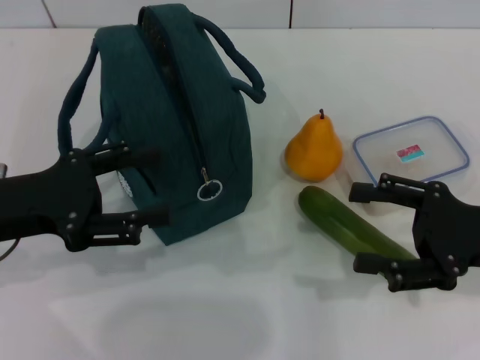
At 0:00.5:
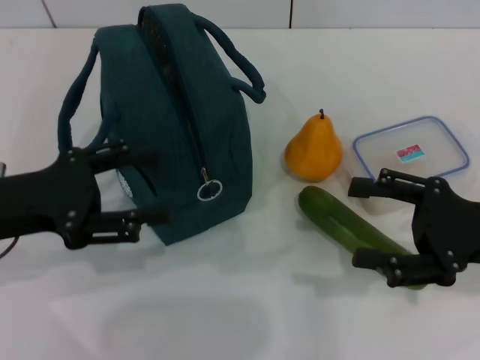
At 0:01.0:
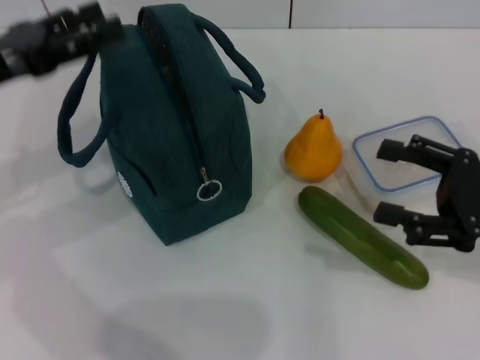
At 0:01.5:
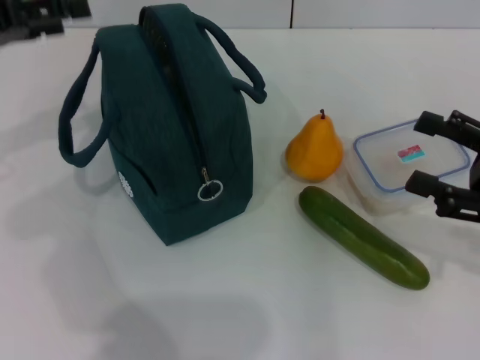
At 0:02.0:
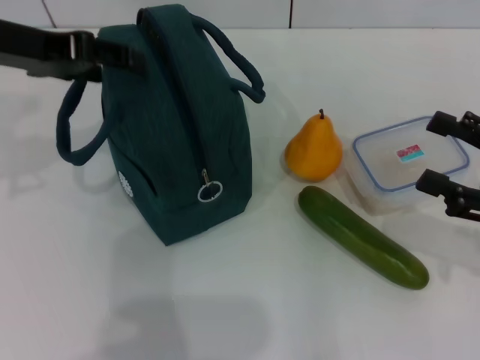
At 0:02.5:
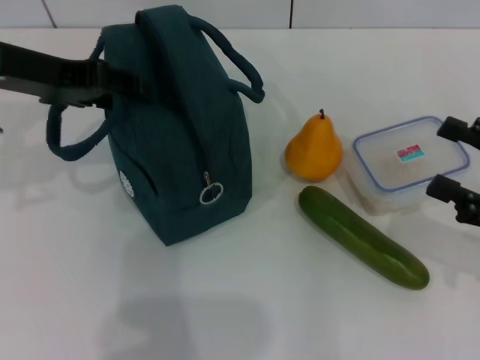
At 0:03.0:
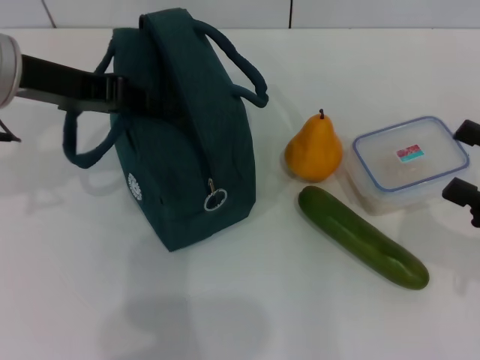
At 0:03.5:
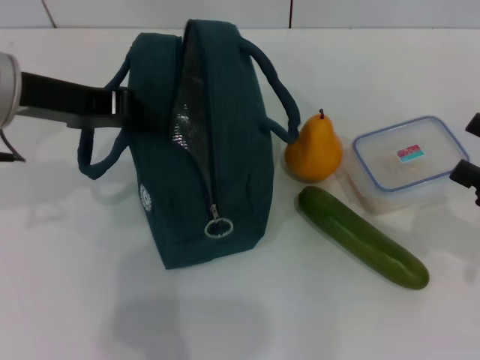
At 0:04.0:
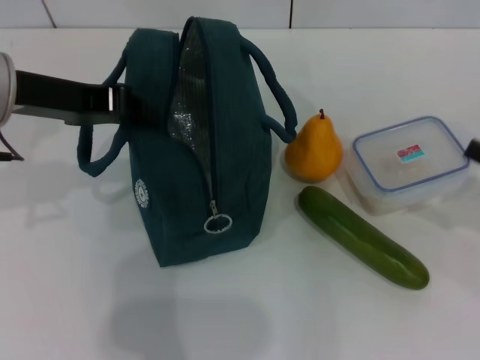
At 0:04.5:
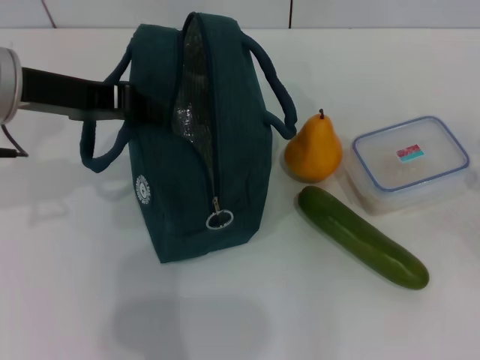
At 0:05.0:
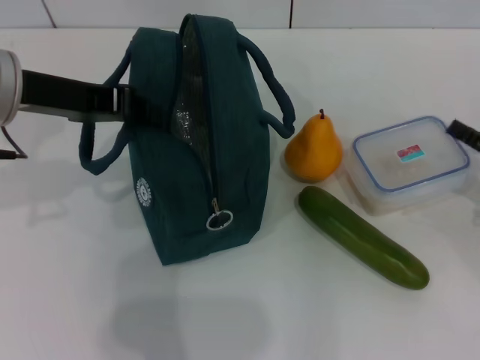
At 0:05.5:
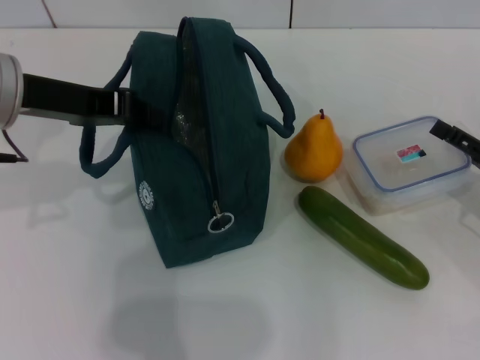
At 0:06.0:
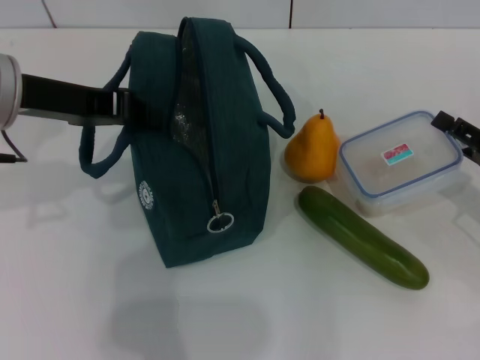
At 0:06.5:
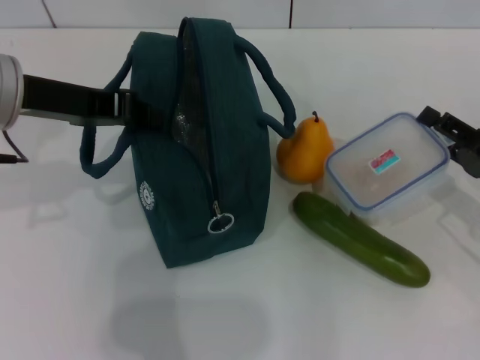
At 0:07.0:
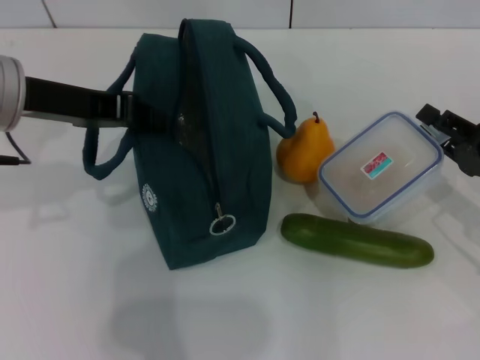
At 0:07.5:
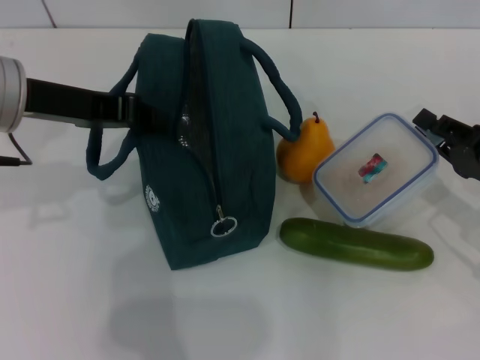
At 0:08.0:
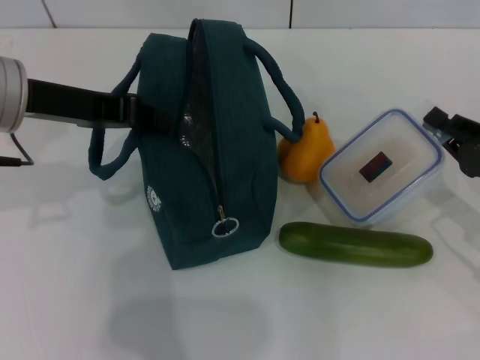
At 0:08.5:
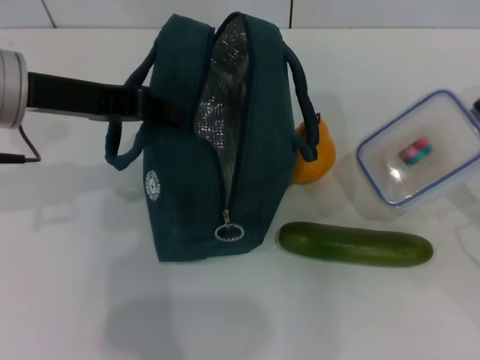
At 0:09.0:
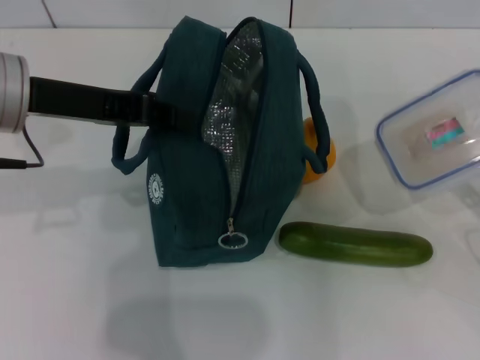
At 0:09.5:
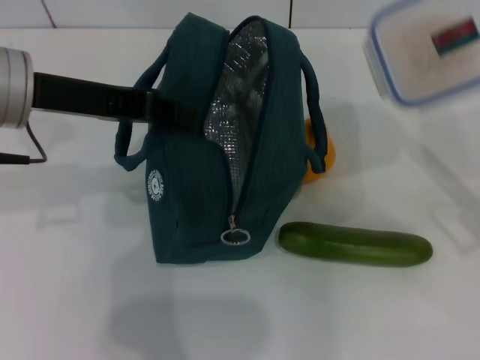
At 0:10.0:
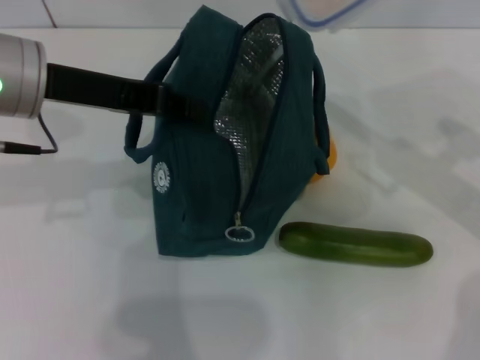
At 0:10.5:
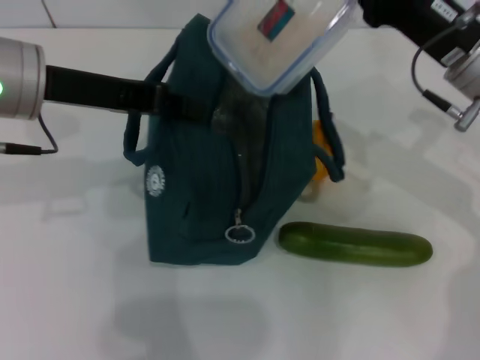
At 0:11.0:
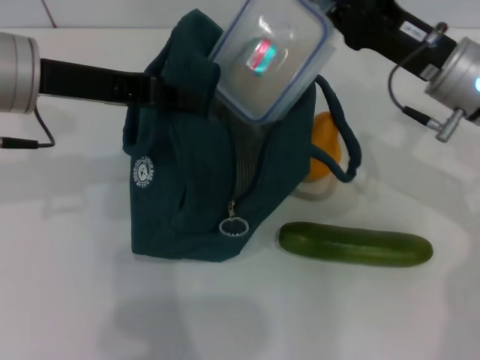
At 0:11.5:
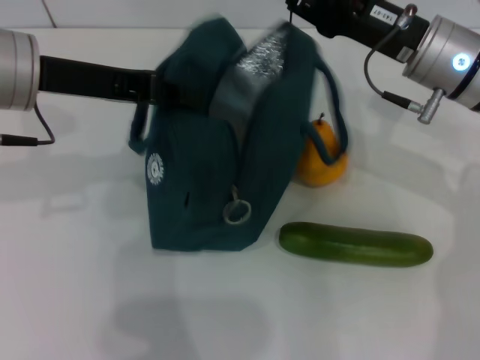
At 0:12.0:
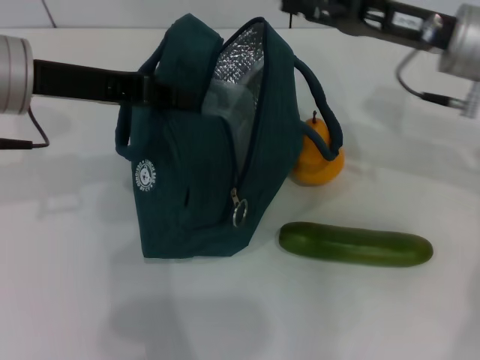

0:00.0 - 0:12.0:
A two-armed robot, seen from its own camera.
Step, 0:00.0 - 0:02.5: Hold the lunch bag with your left hand.
Step, 0:03.0 - 0:07.5: Pick up the lunch box with your right hand.
Step, 0:08.0 - 0:11.5: Place the lunch box into the lunch bag with your right hand.
0:00.0 - 0:02.0: The left gripper is displaced upward and forward by approximately 15 cm.
0:02.0 - 0:04.0: The right gripper moves to the right, approximately 5 cm, while the left gripper closes its fingers.
0:04.0 - 0:06.0: The right gripper changes place by some 5 cm.
0:06.0 - 0:08.0: The right gripper closes up.
0:08.0 - 0:10.0: The right gripper travels upward, to the left and forward by approximately 15 cm.
0:10.0 - 0:12.0: The right gripper ends up about 5 cm from where it was, and opens its fingers.

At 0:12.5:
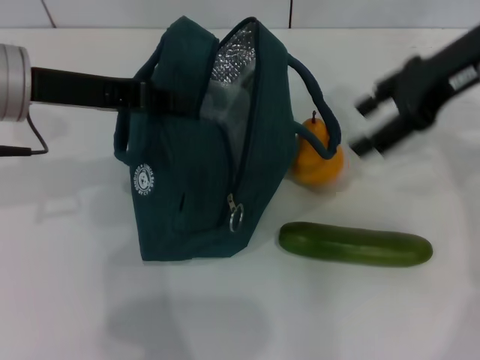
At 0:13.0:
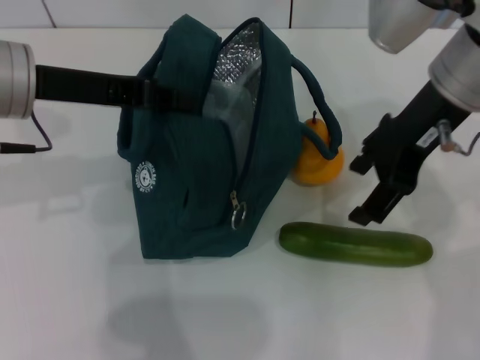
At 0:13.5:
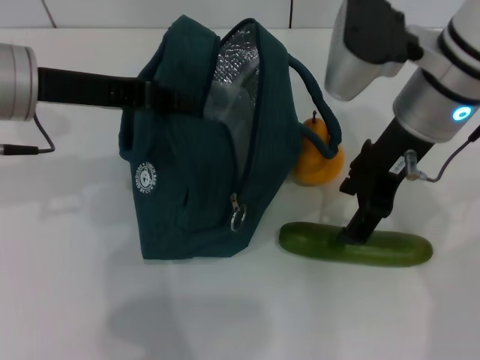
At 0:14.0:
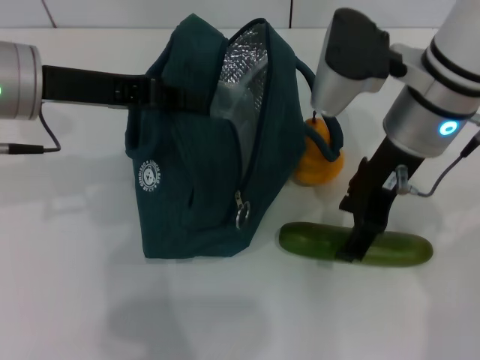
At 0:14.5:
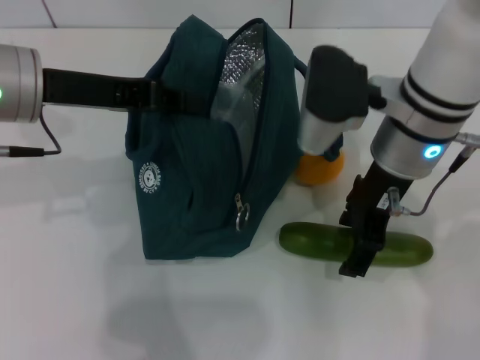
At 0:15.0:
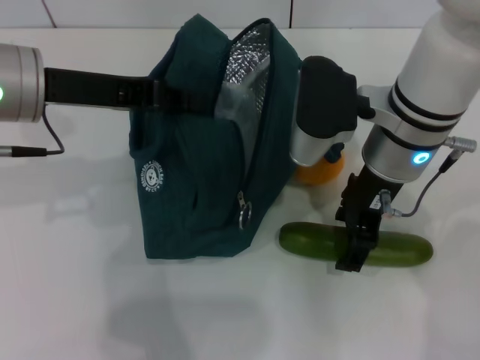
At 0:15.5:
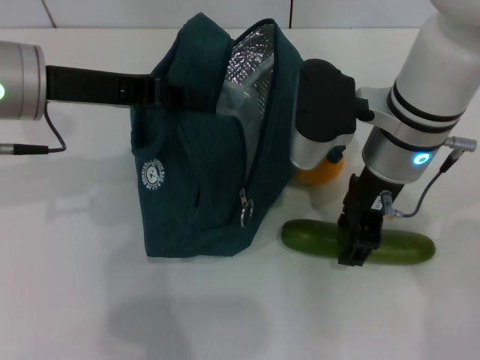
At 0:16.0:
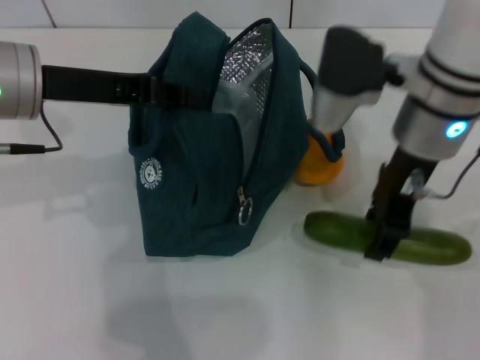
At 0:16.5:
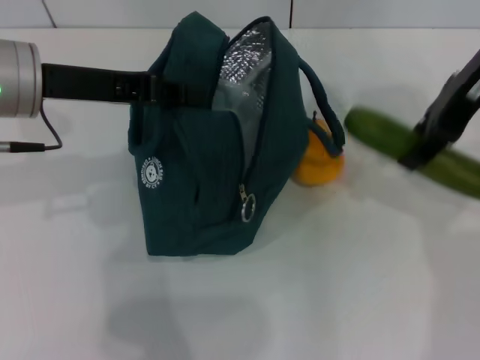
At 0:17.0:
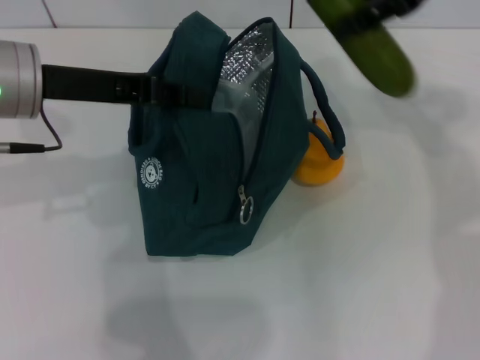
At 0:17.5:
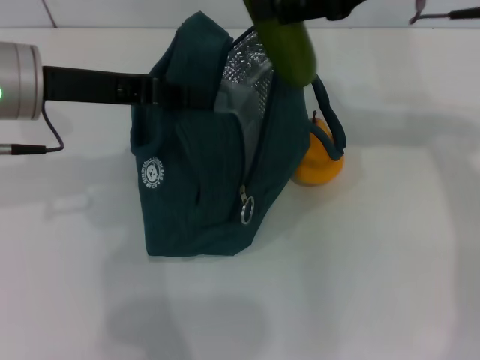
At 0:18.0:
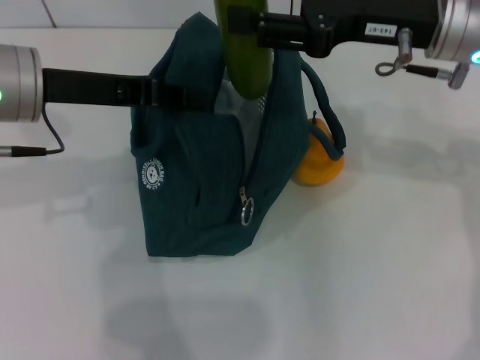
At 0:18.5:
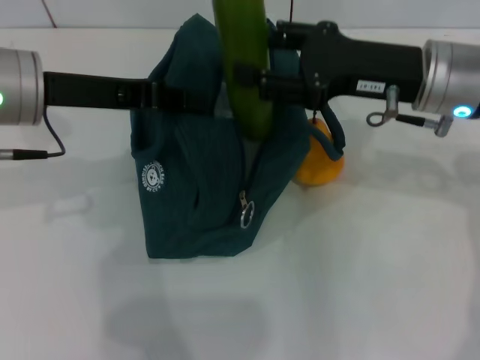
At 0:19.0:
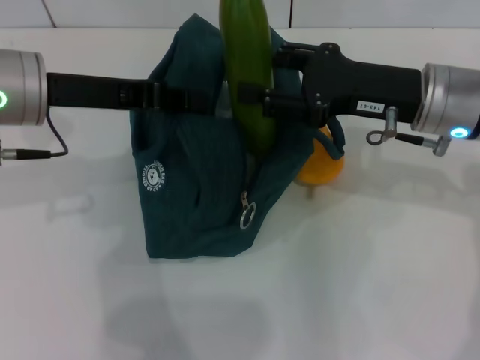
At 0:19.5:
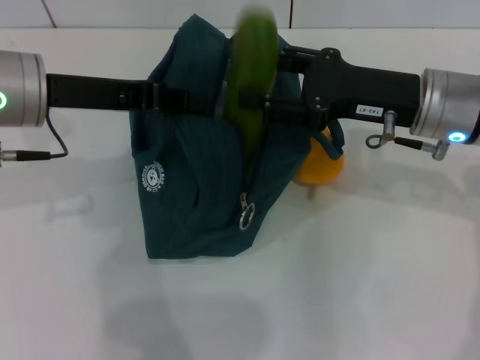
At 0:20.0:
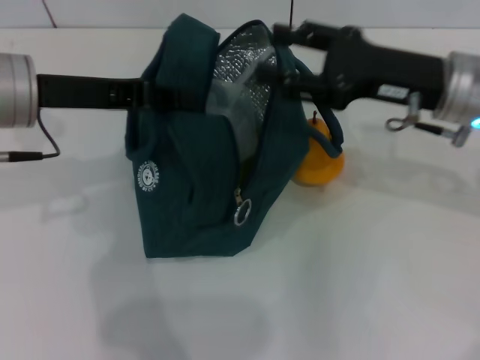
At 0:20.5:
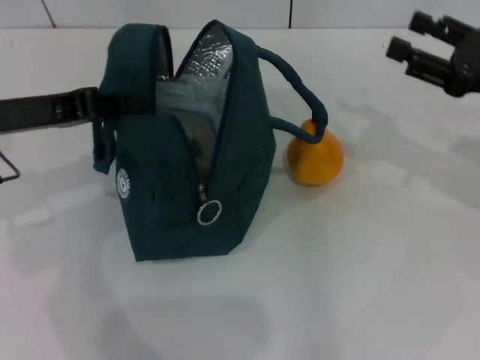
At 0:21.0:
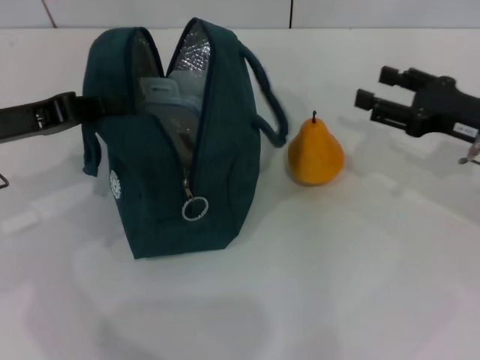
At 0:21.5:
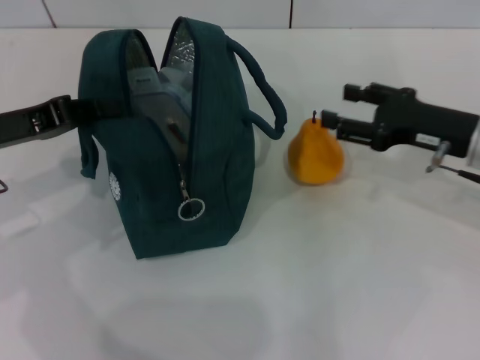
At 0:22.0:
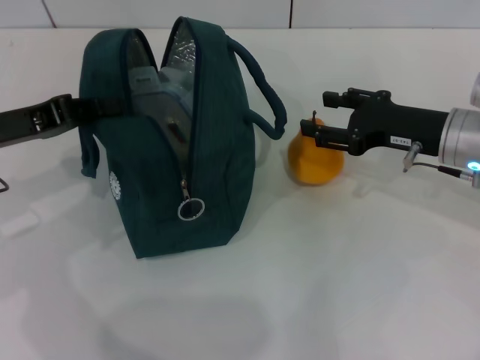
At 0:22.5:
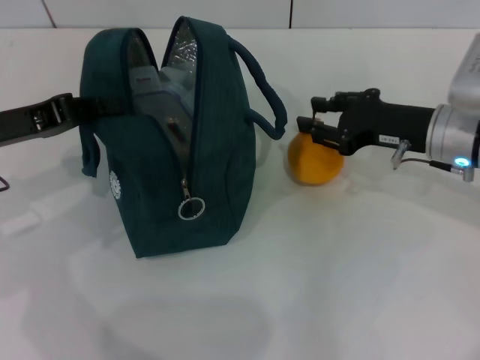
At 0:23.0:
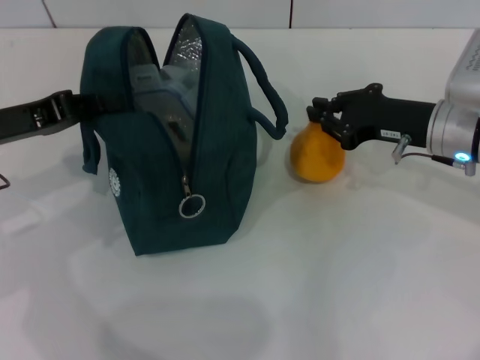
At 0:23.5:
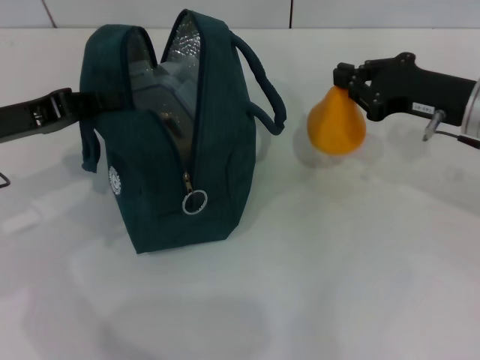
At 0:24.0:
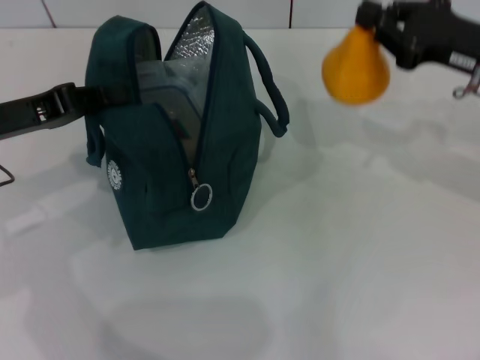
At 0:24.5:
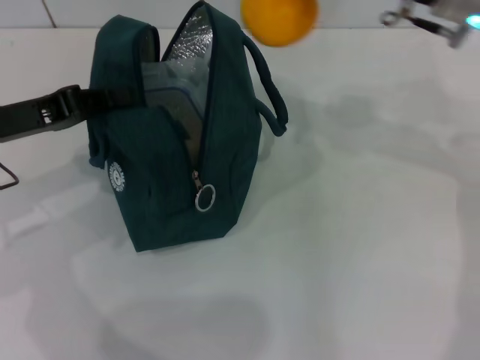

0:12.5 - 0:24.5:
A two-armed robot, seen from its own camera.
Step, 0:12.5 - 0:15.5: Pick up the cucumber with your right hand.
Step, 0:16.0 - 0:19.5: Put the cucumber into the lunch bag with your right hand.
Step, 0:20.0 - 0:22.5: Grab the pear with your right hand.
0:12.5 - 0:14.5: The right gripper goes approximately 15 cm to the left and downward.
0:14.5 - 0:16.5: The right gripper moves upward and to the right, some 10 cm.
0:16.5 - 0:18.5: The right gripper moves downward, about 10 cm.
0:18.5 - 0:20.5: The left gripper moves to the left, about 5 cm; the right gripper shifts about 10 cm to the right.
0:20.5 - 0:22.5: The right gripper heads to the left, covering about 10 cm.
0:22.5 - 0:24.5: The right gripper travels upward by roughly 15 cm, and closes its fingers.

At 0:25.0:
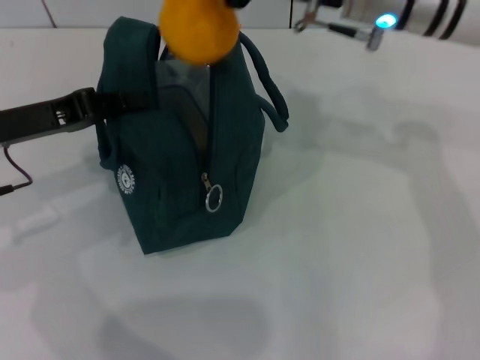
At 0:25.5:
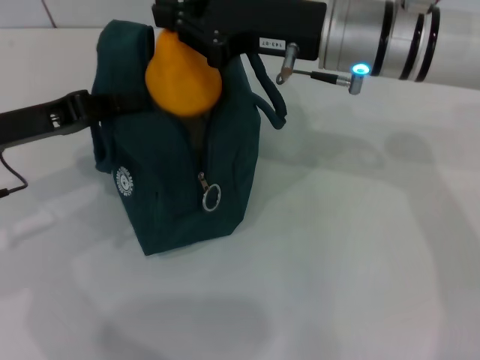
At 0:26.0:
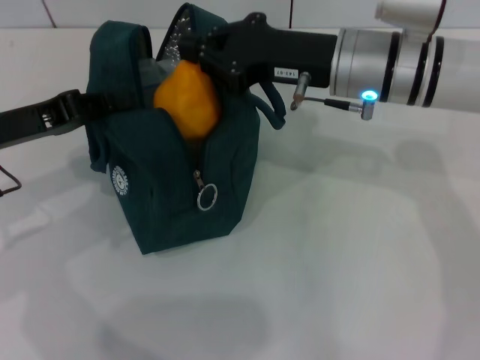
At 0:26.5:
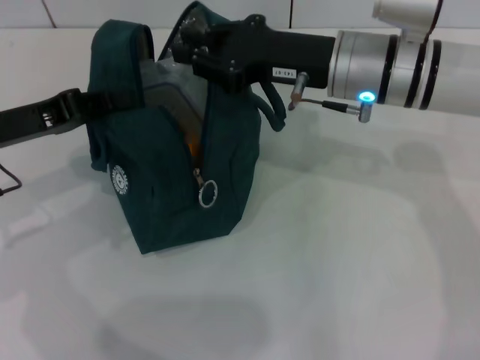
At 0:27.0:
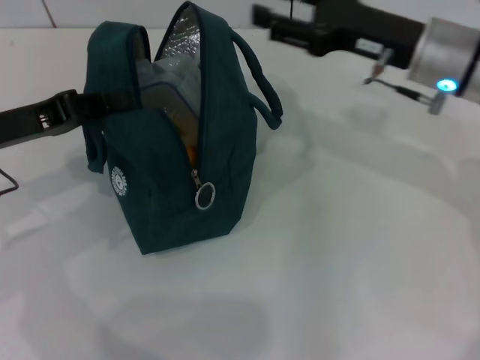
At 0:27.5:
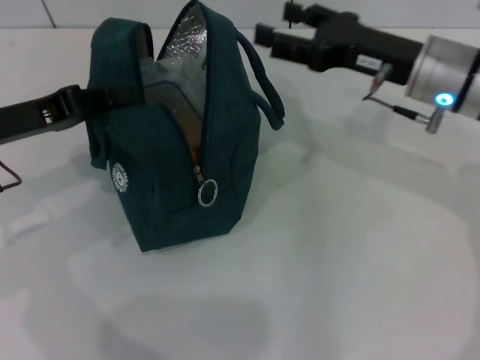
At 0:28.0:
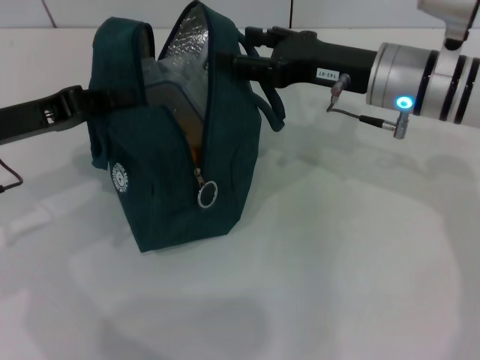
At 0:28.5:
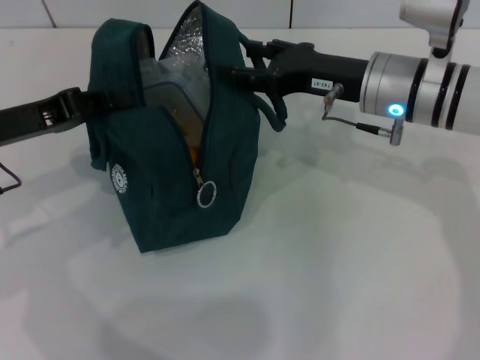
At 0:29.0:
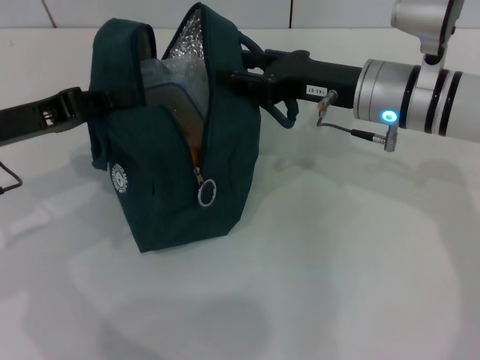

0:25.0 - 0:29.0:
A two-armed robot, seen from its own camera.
0:25.0 - 0:27.0: The right gripper is displaced to the right and downward by some 10 cm, and opens.
0:27.0 - 0:29.0: The right gripper ends up roughly 5 cm from where it was.
